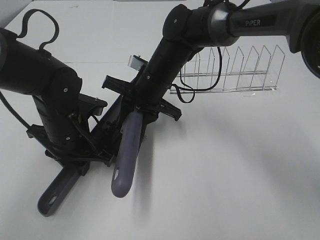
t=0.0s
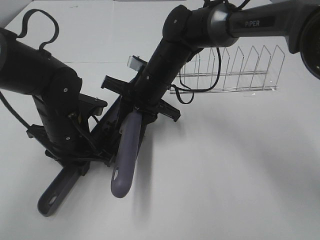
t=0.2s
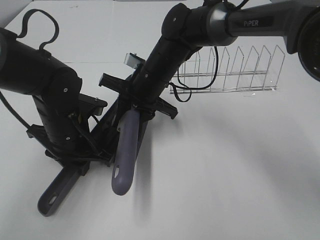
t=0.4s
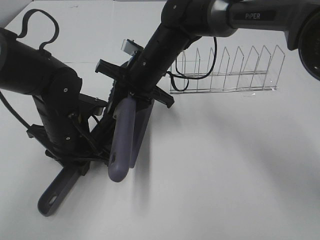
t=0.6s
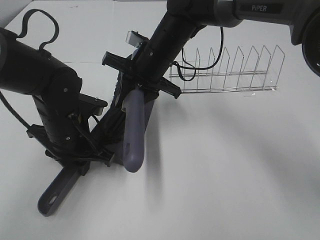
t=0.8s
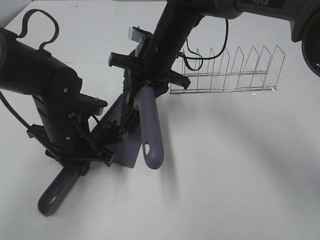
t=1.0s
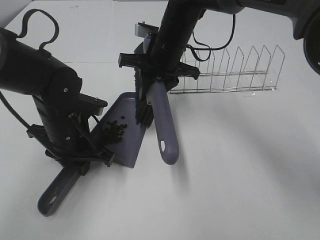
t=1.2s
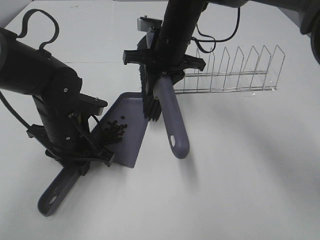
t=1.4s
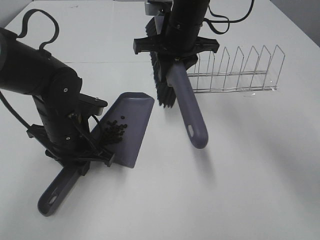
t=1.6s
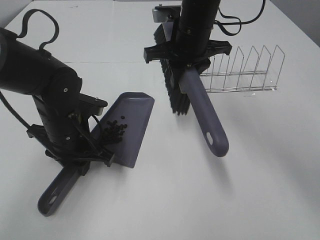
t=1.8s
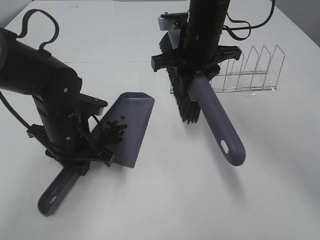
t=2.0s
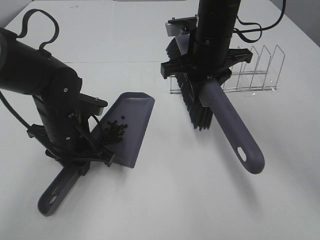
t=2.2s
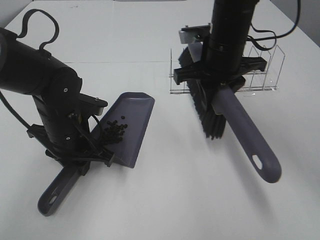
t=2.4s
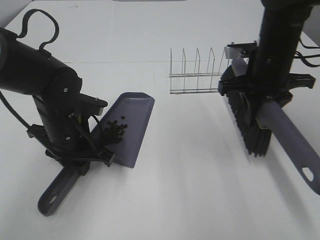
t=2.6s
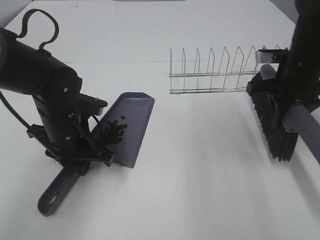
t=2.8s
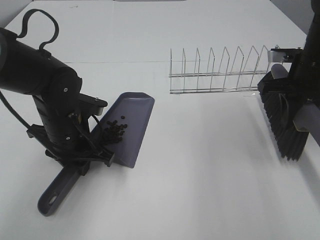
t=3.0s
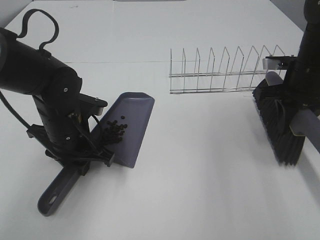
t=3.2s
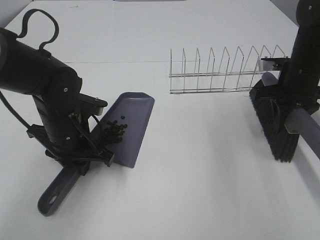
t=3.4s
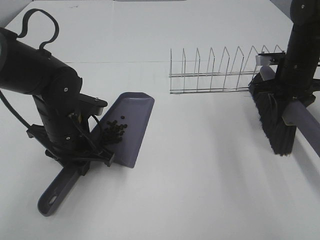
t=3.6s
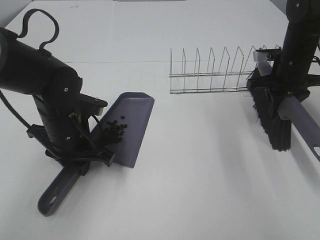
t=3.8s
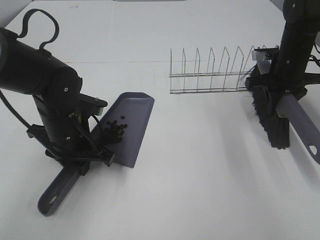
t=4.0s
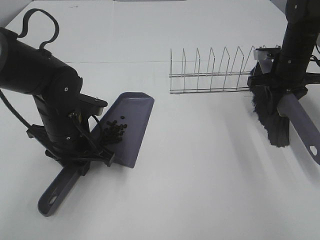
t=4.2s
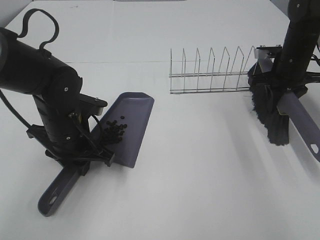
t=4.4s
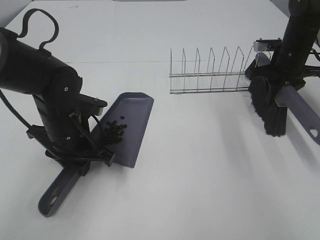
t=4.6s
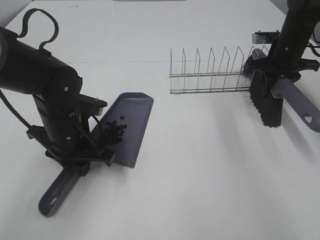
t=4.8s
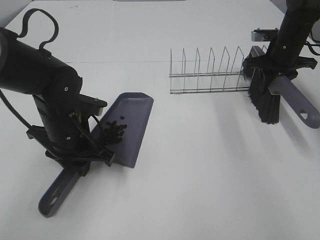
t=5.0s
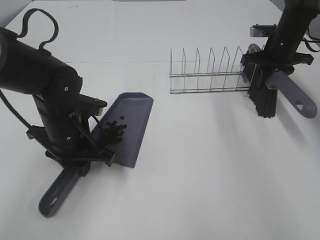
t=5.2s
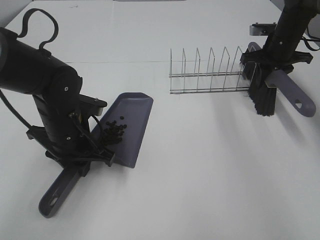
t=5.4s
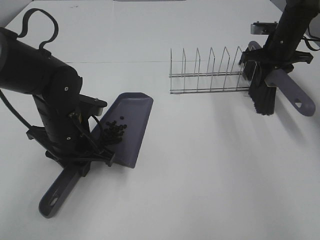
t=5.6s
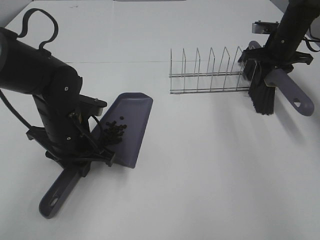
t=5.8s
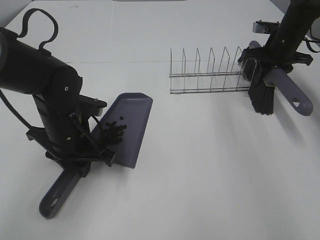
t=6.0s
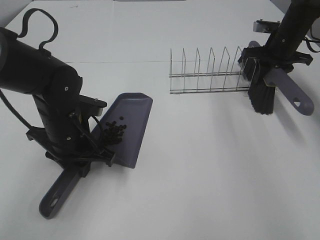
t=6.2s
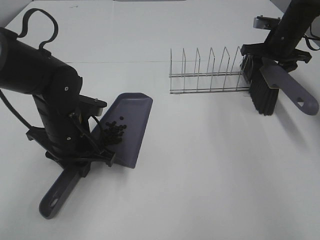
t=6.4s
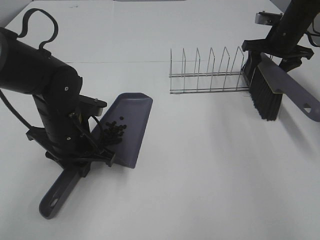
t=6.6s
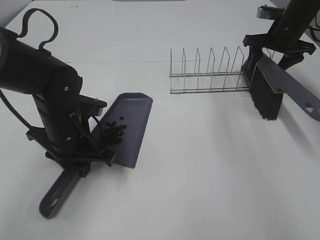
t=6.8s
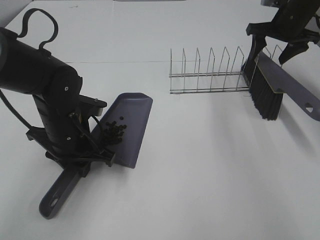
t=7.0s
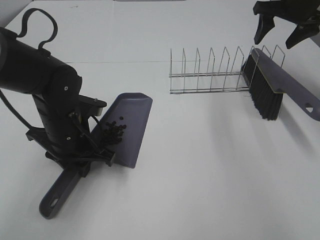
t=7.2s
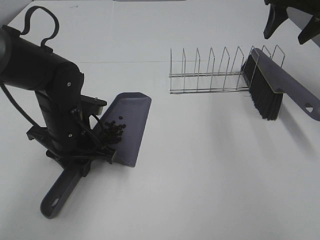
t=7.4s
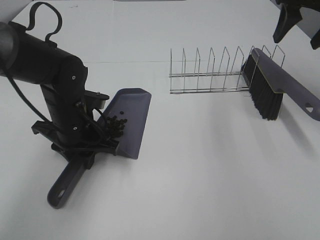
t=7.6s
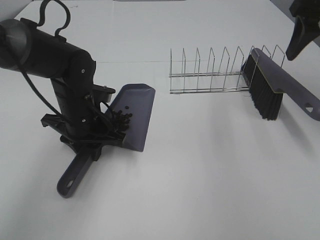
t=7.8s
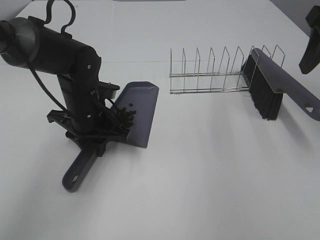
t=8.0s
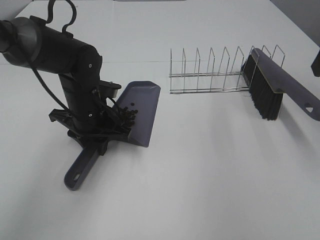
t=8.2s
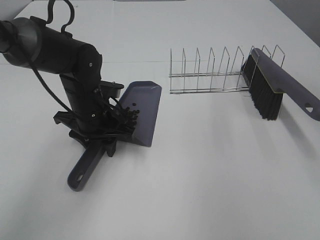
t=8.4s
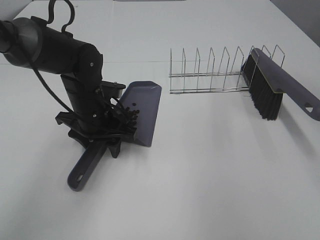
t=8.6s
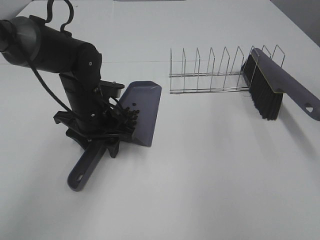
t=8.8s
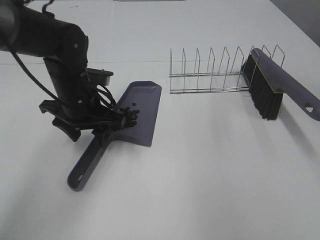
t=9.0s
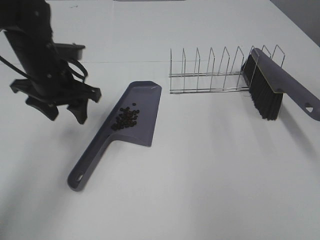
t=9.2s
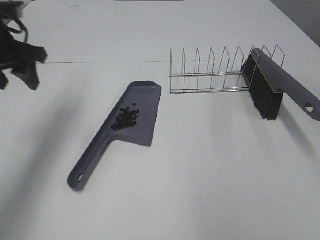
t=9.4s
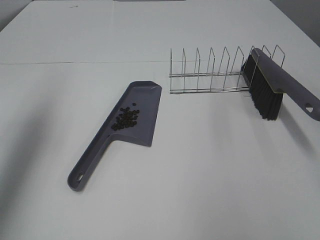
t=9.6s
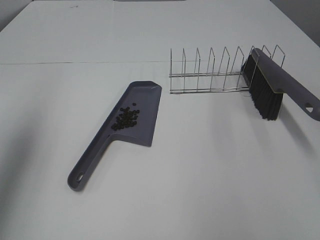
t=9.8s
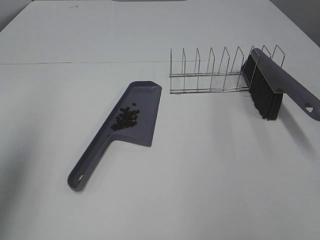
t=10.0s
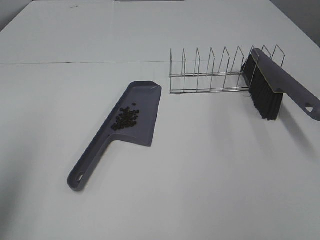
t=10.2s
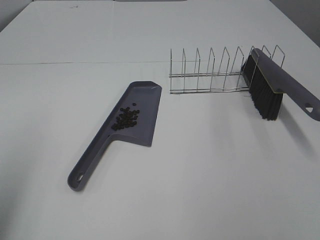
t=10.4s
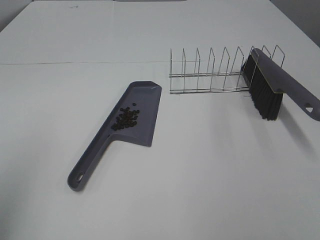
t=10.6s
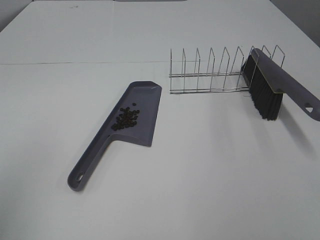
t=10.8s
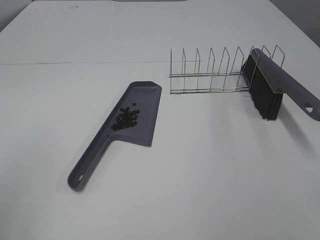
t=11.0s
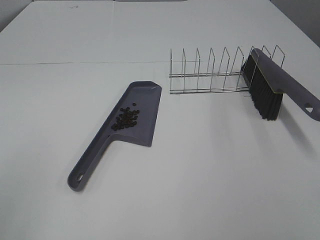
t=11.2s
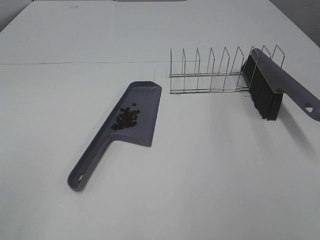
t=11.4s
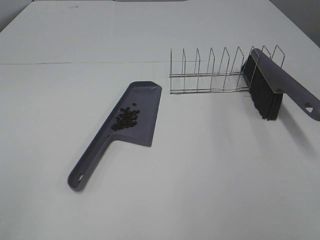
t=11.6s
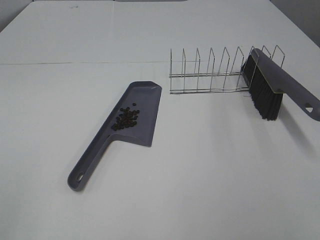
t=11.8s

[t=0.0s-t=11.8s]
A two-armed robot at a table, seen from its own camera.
Task of the whole recording: Sweep Coffee Bean.
Step, t=1.2s to t=6.4s: Right hand:place the broom on the rack.
Step, t=6.6s to t=8.8s: Left hand:place the dustpan on the table.
t=0.0s to t=1.4s: The right gripper goes approximately 5 cm upward.
t=1.4s to t=3.0s: The right gripper goes some 25 cm to the right.
t=3.0s to t=4.4s: The right gripper heads forward, covering some 10 cm.
t=4.4s to t=6.0s: The right gripper is displaced forward by roughly 5 cm.
t=6.0s to t=7.4s: The right gripper shifts about 15 cm upward and backward, and opens up.
t=7.4s to t=8.8s: The left gripper moves roughly 5 cm, and opens its fingers. Meanwhile the right gripper moves backward, about 25 cm.
t=8.8s to t=10.4s: The right gripper is displaced backward by about 20 cm. The left gripper goes some 40 cm backward, upward and to the left.
t=10.4s to t=11.8s: The left gripper is displaced backward by about 10 cm.

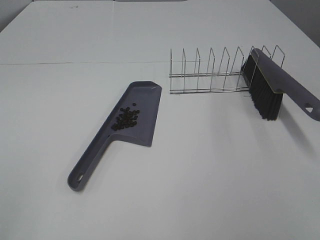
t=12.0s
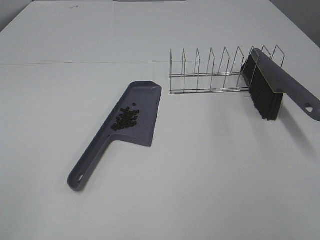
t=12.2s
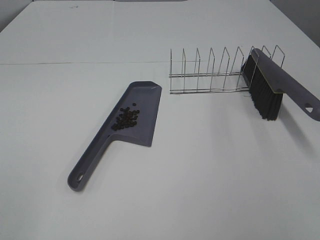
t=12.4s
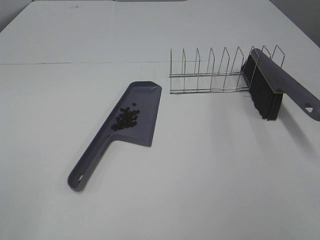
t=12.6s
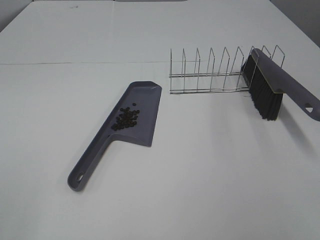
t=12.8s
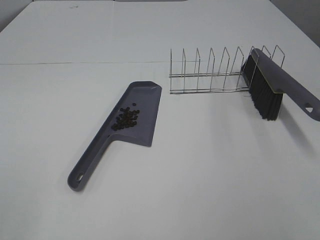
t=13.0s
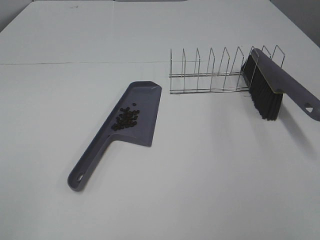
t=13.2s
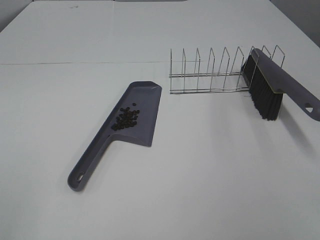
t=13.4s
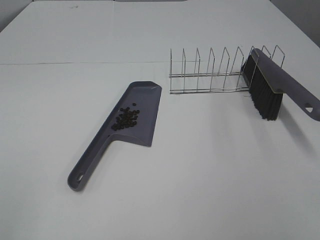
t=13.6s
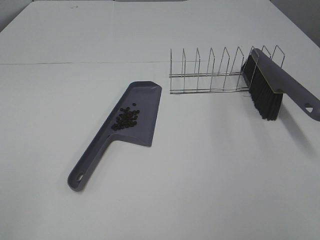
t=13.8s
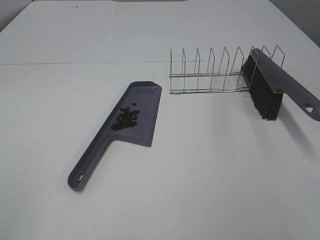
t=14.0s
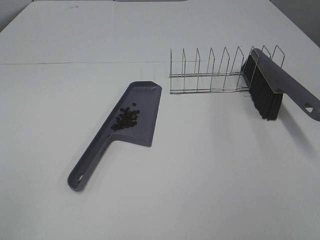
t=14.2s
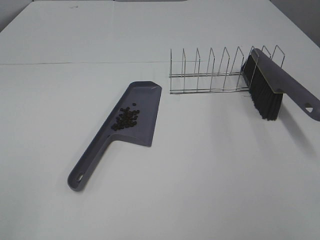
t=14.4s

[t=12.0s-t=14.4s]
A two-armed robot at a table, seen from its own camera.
Task of the whole recording: Sweep Coffee Bean.
t=12.0s to t=14.4s: Neither gripper changes place.
